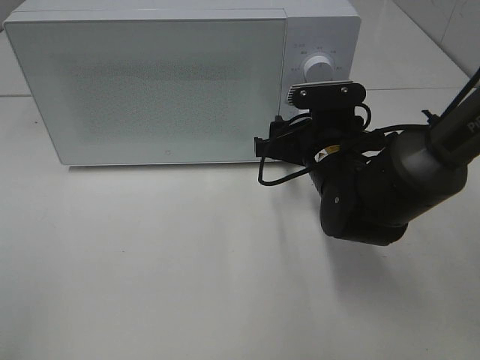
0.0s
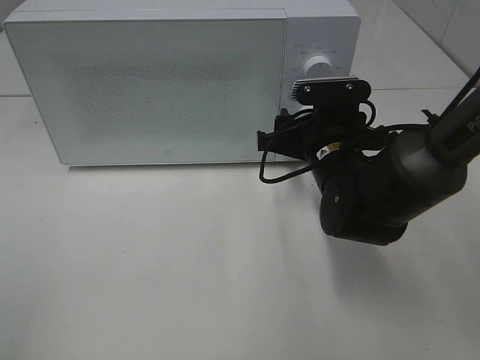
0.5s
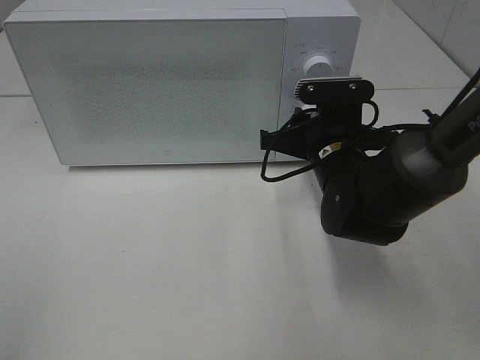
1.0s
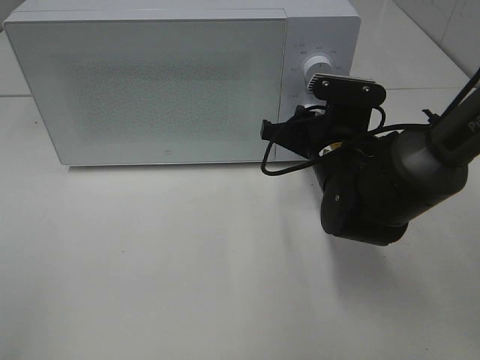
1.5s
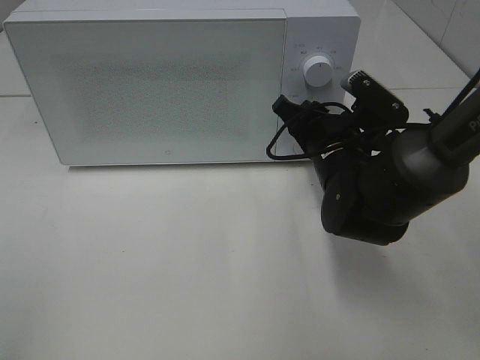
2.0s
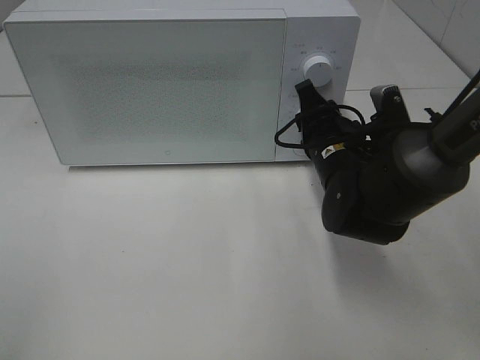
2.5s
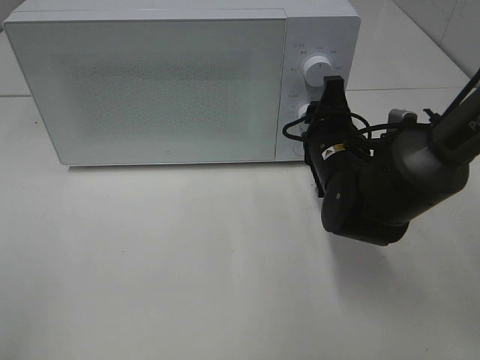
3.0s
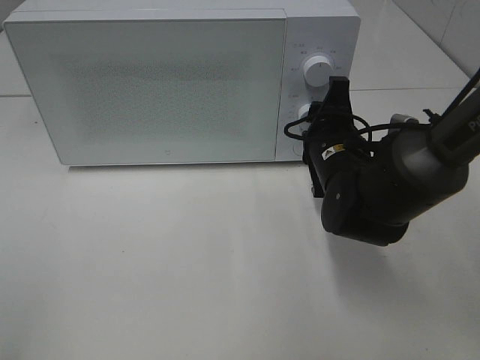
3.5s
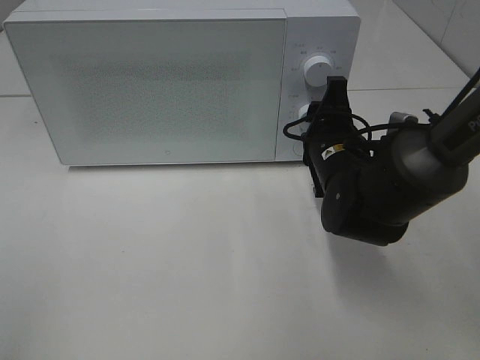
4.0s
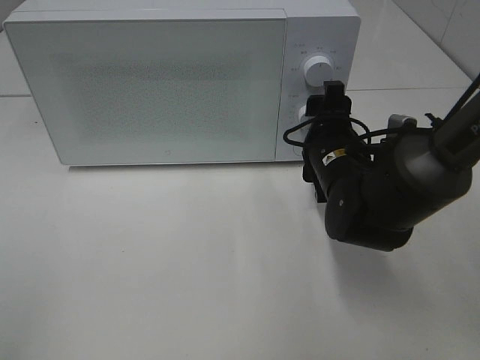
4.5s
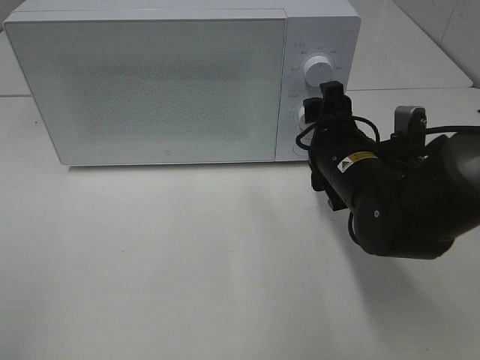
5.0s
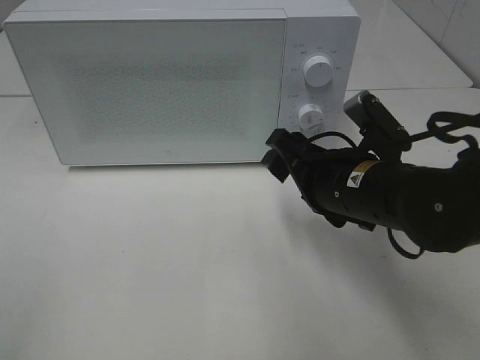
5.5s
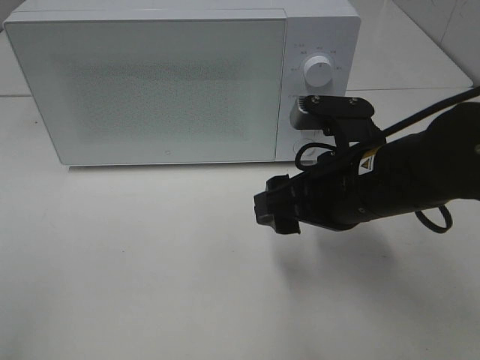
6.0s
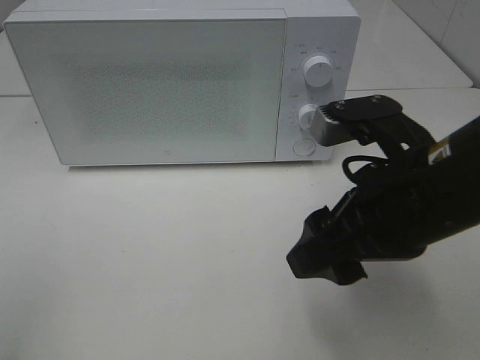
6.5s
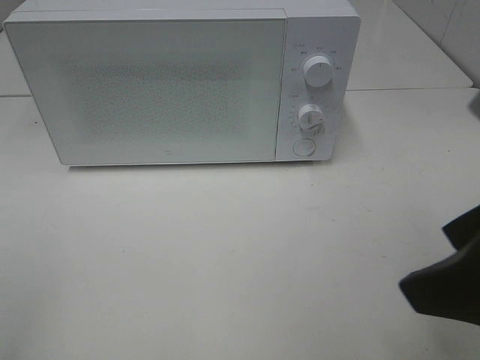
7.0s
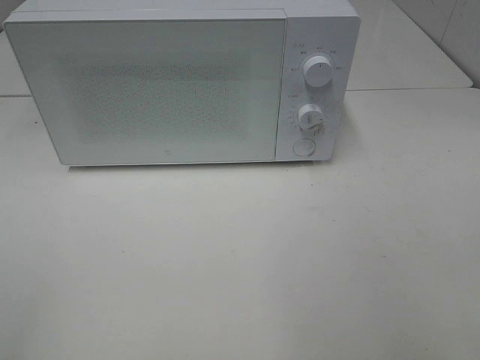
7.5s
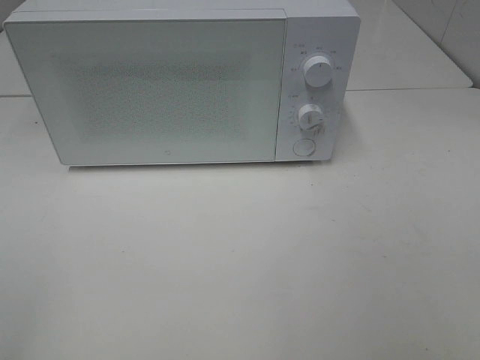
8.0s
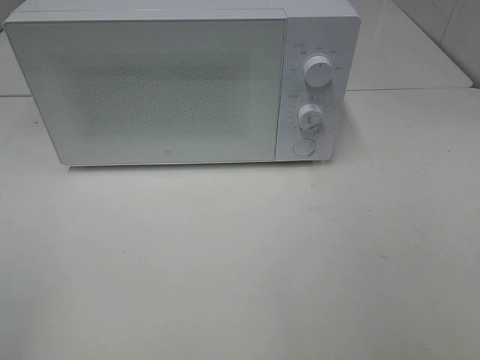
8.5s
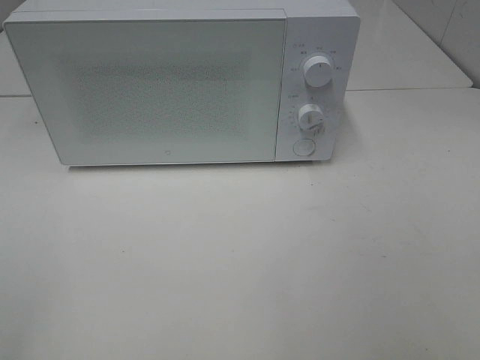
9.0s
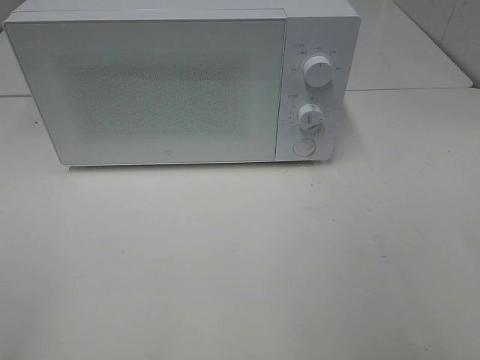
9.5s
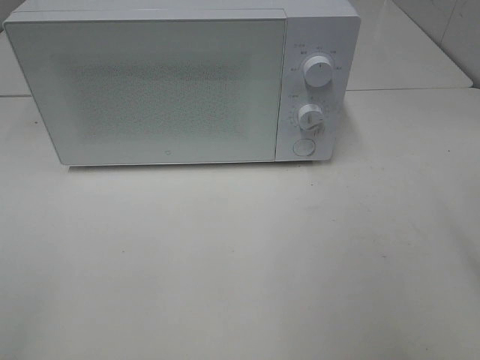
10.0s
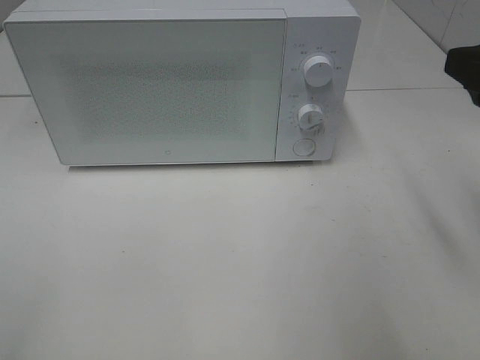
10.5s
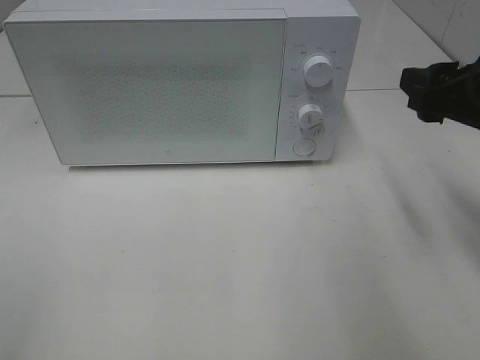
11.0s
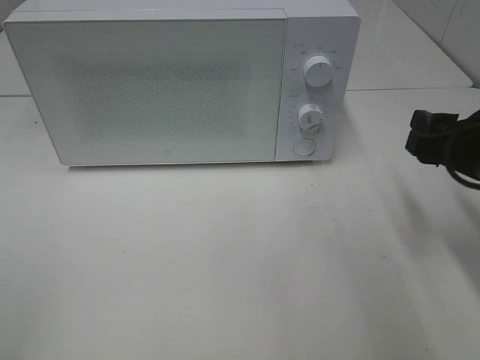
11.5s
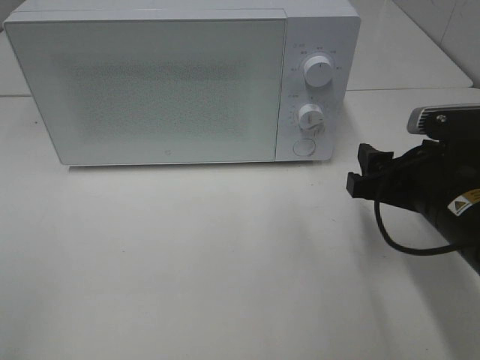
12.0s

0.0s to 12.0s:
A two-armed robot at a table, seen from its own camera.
Task of the whole recording: Heat Sandwich.
Step, 0.0s to 4.5s: Right hand: twist timer button.
0.0s to 2.0s: The right gripper closes.
4.0s to 6.0s: The right gripper moves backward and upward, approximately 10 cm.
6.0s to 8.0s: The right gripper heads backward, to the right and upward, covering roughly 30 cm.
10.0s to 12.0s: The right gripper travels downward, forward and to the left by some 20 cm.

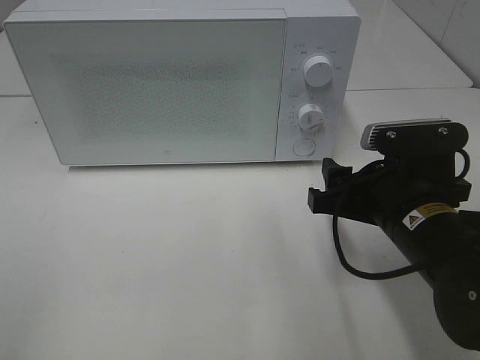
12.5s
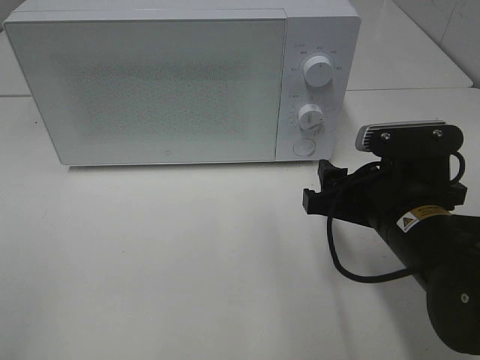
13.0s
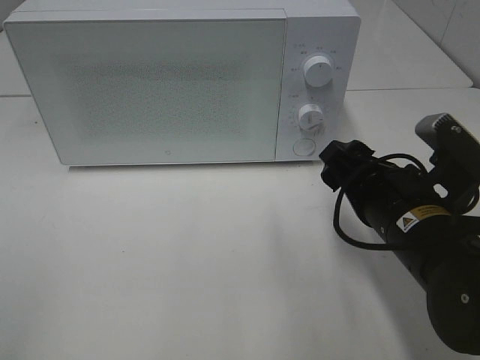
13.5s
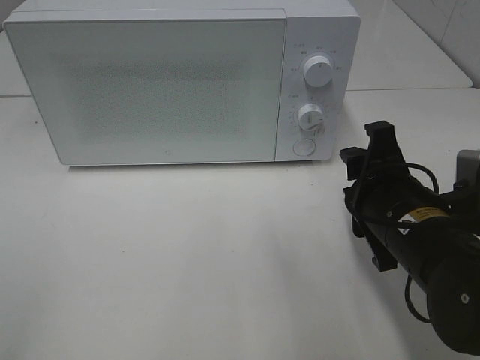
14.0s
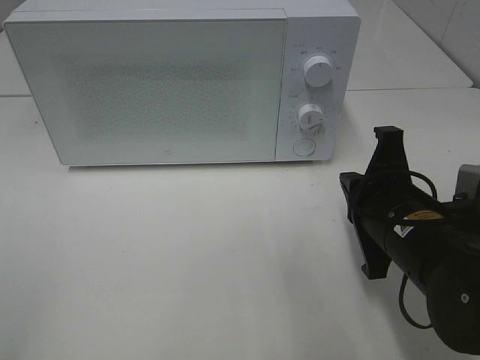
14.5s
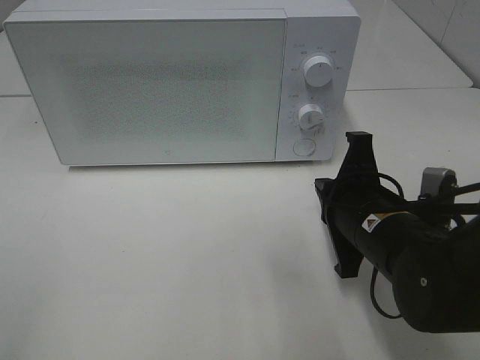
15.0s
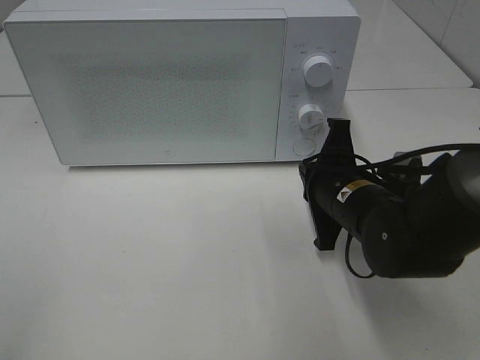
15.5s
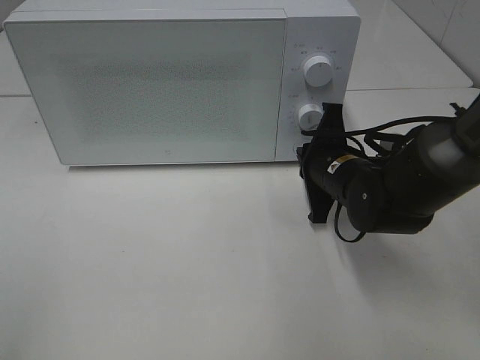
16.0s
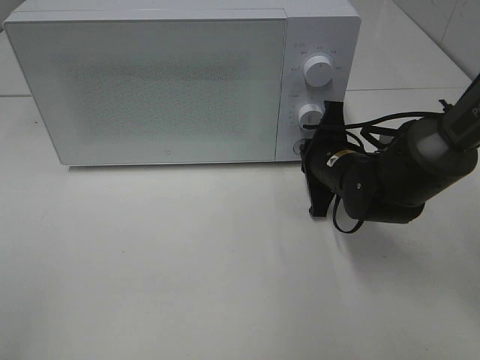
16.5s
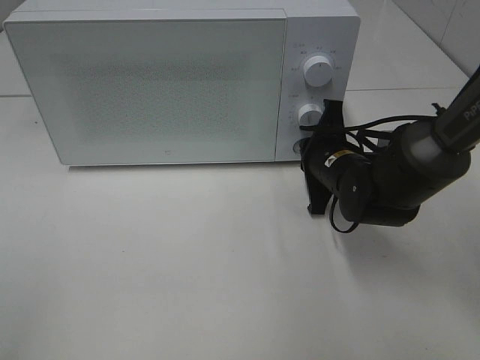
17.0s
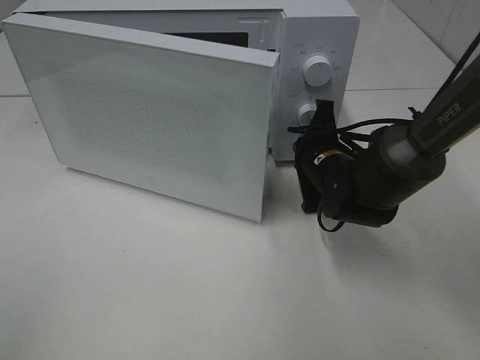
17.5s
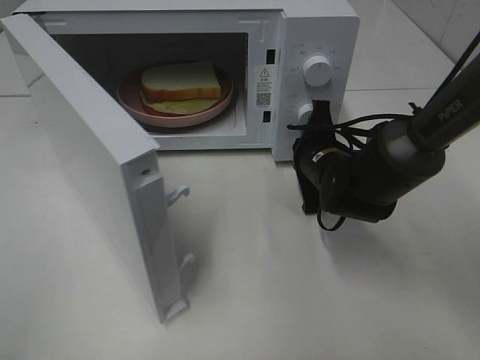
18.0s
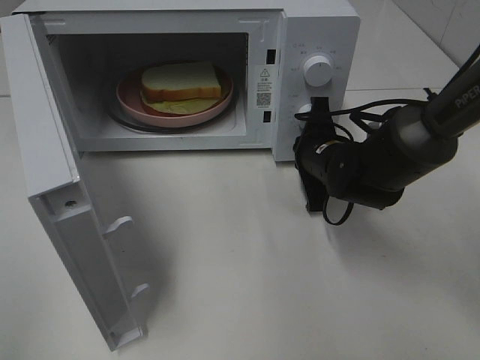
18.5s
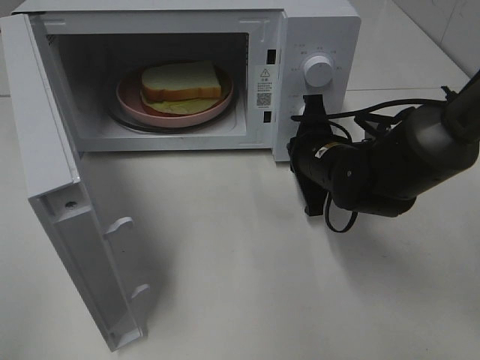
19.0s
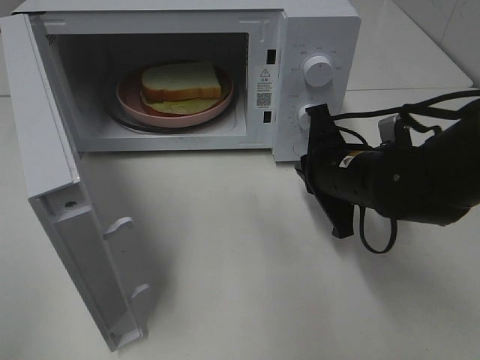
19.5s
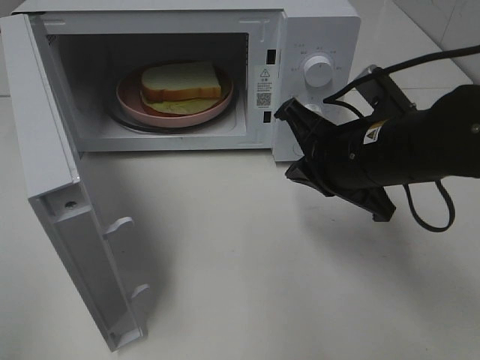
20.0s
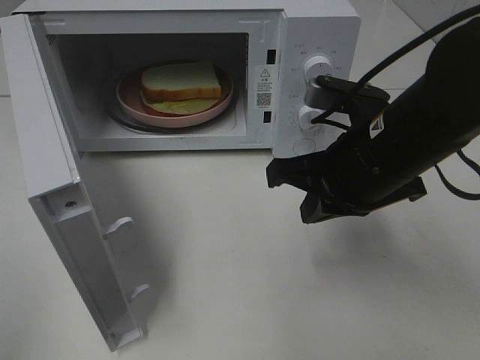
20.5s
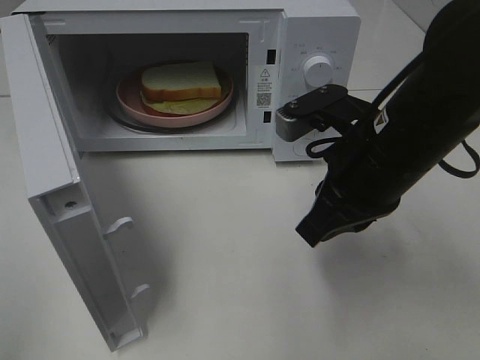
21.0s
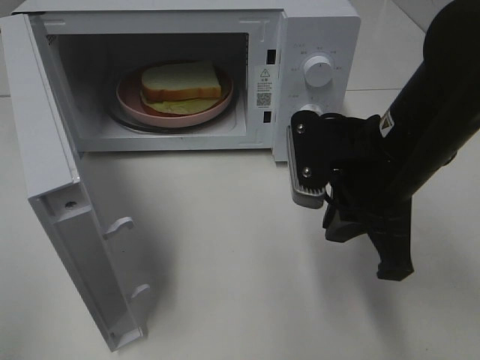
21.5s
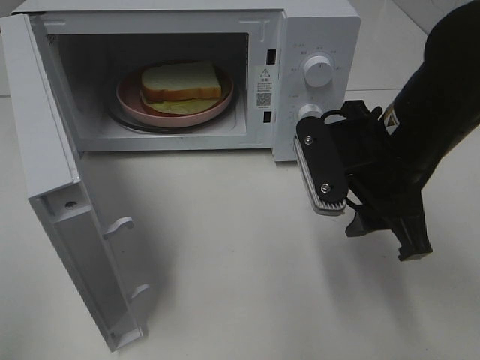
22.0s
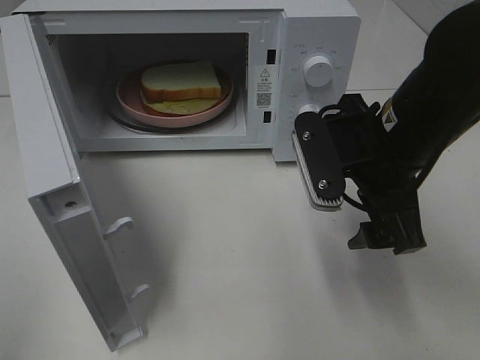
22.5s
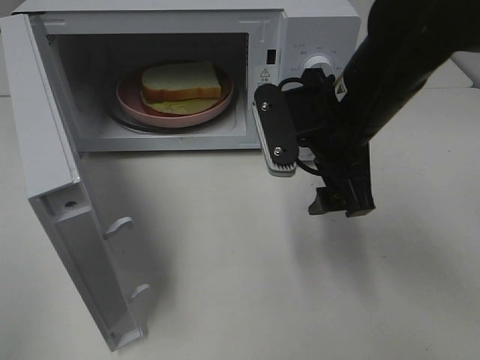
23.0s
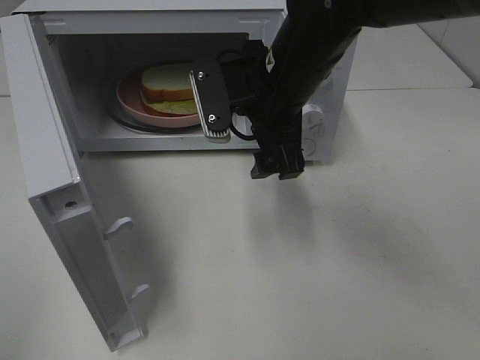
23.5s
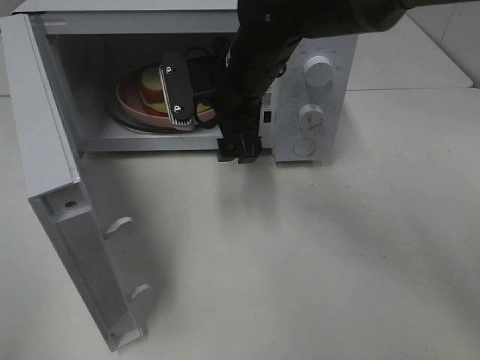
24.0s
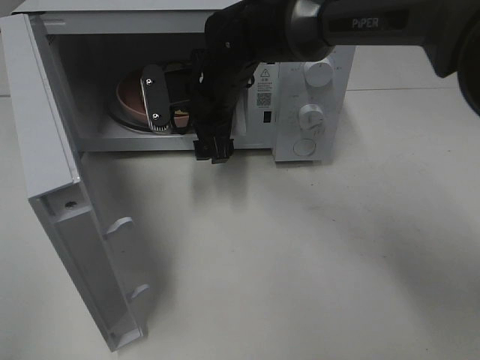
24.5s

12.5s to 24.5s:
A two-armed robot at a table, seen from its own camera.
Task of the whole recording: Heat Sandwich.
Step, 12.5s to 19.5s: Right hand: press the switch.
12.5s to 14.5s: The right gripper closes.
14.5s to 16.5s: The right gripper travels forward by some 15 cm.
18.5s to 20.5s: The right gripper travels backward and upward by about 15 cm.
20.5s to 22.5s: The right gripper opens up.
22.5s to 24.5s: The right gripper heads forward and to the left, covering about 25 cm.

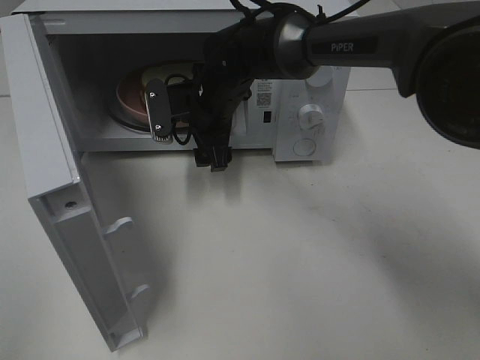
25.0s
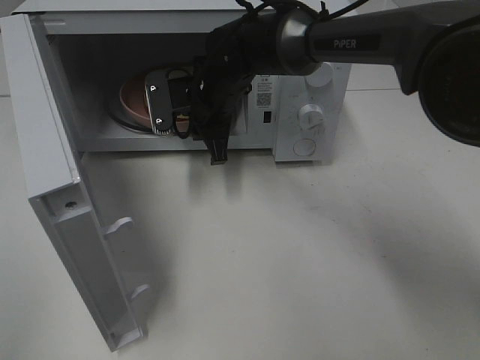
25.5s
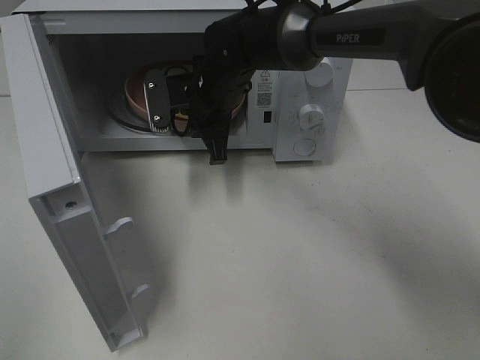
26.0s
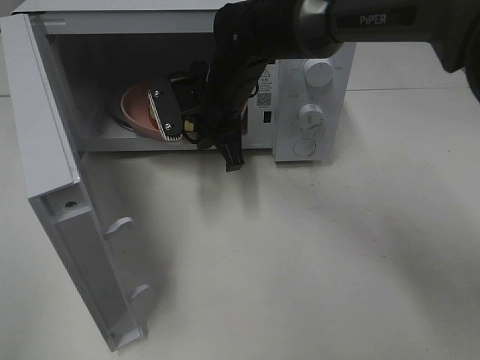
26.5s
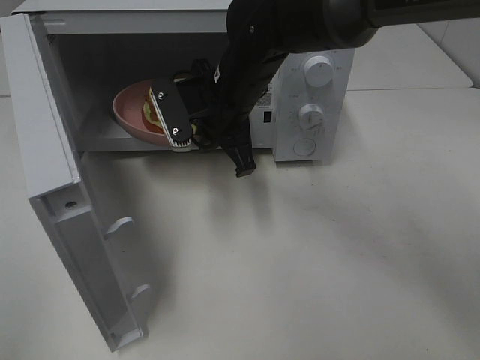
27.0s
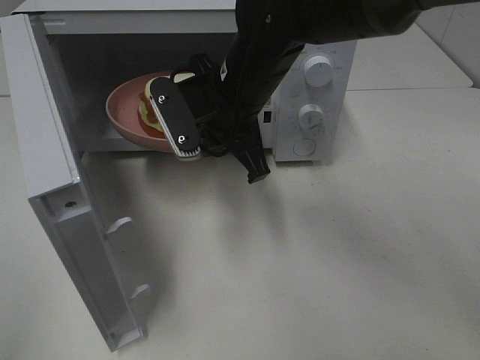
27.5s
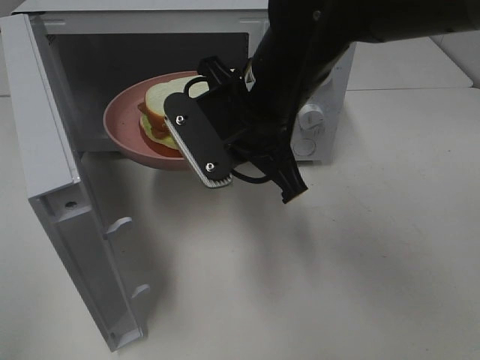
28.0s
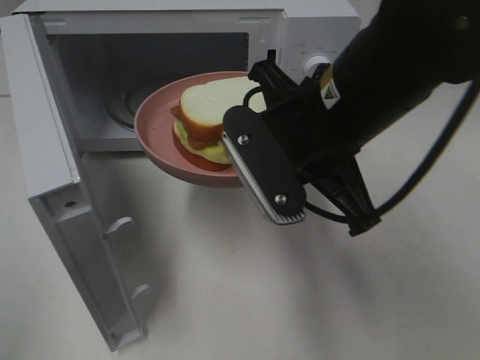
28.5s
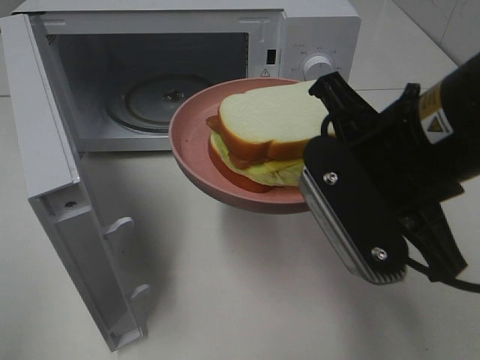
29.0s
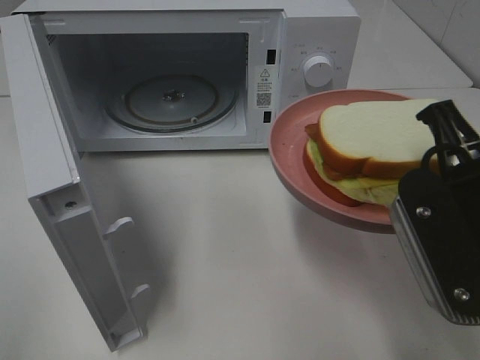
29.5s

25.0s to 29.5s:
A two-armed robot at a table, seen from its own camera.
Task of the whole recording: Heat Sandwich.
25.0s to 27.0s: The right gripper heads backward, covering about 5 cm, and closes its fingers.
27.0s to 29.5s: The right gripper is displaced backward and to the right by about 30 cm.
